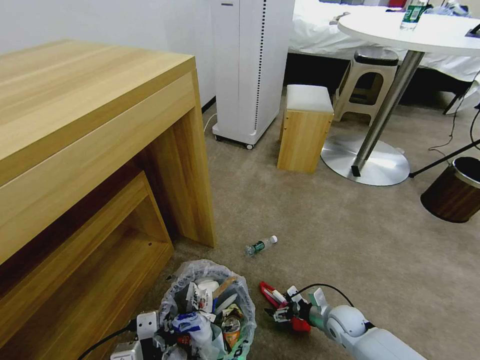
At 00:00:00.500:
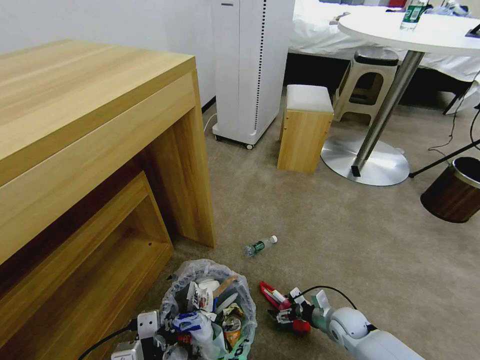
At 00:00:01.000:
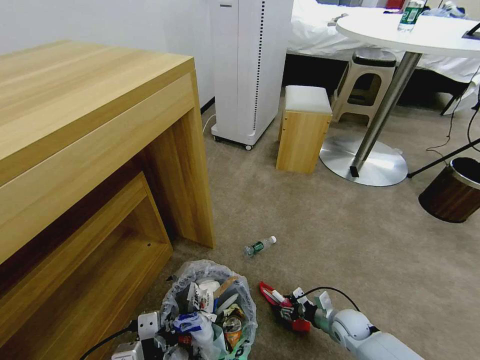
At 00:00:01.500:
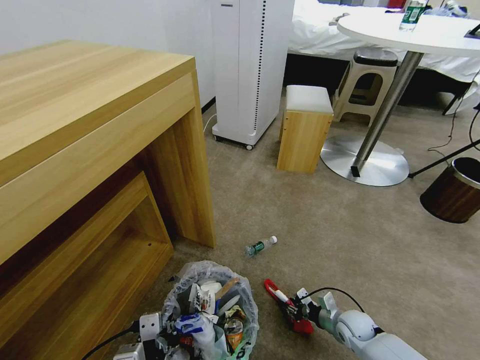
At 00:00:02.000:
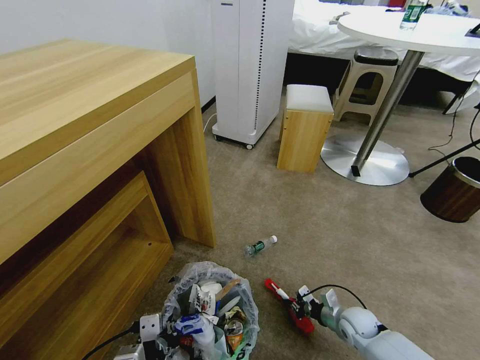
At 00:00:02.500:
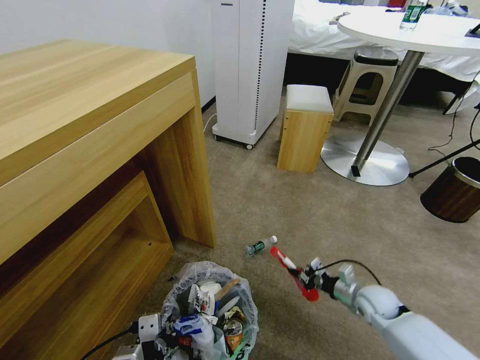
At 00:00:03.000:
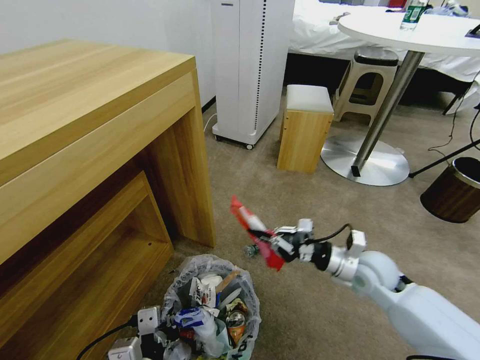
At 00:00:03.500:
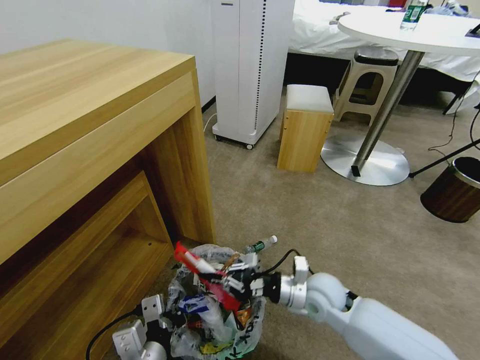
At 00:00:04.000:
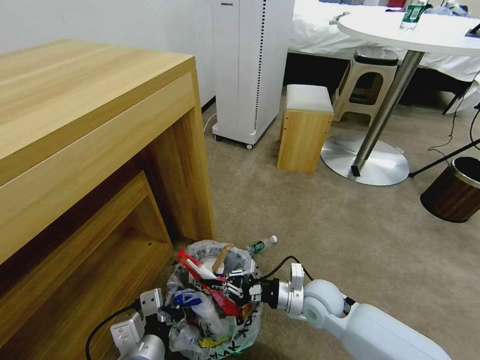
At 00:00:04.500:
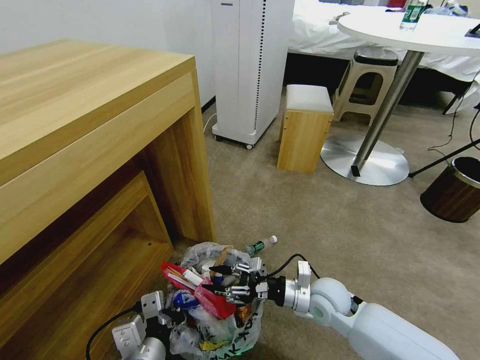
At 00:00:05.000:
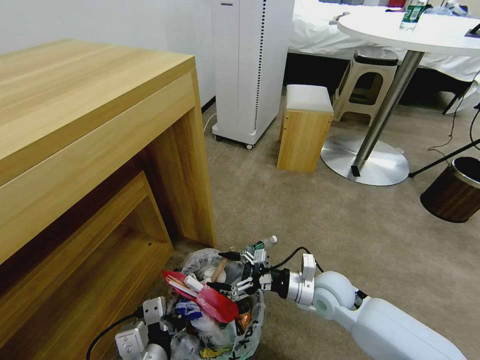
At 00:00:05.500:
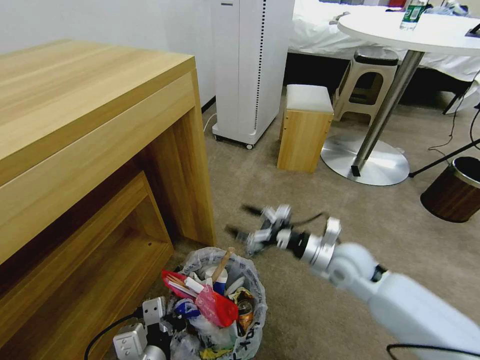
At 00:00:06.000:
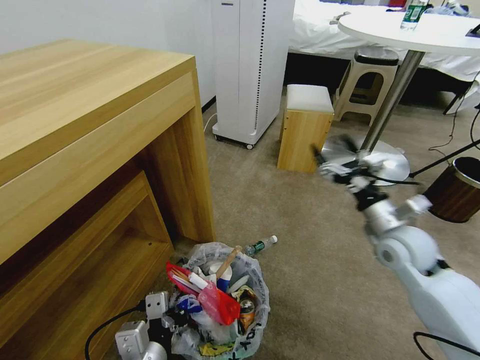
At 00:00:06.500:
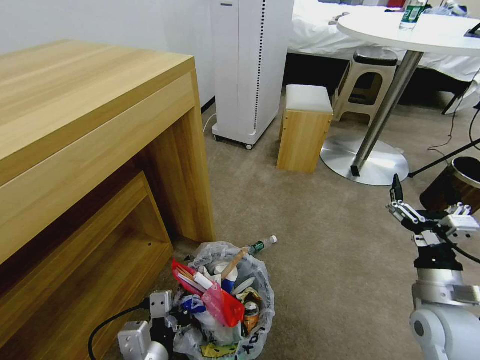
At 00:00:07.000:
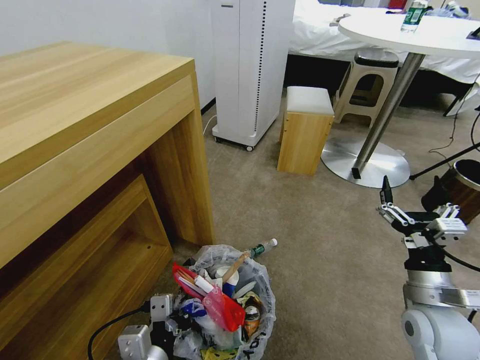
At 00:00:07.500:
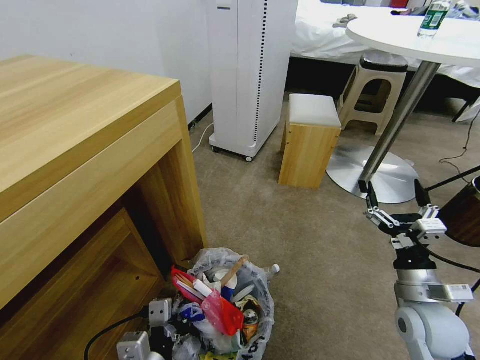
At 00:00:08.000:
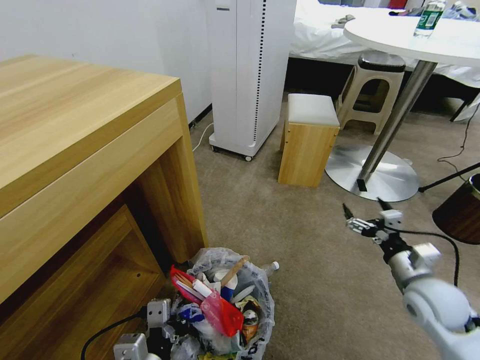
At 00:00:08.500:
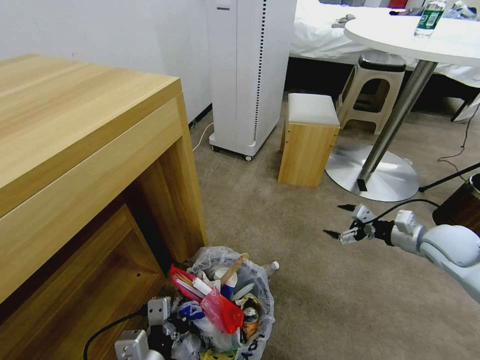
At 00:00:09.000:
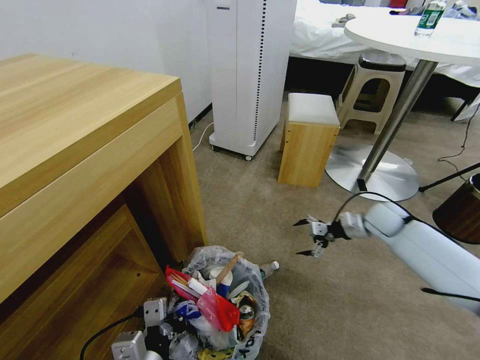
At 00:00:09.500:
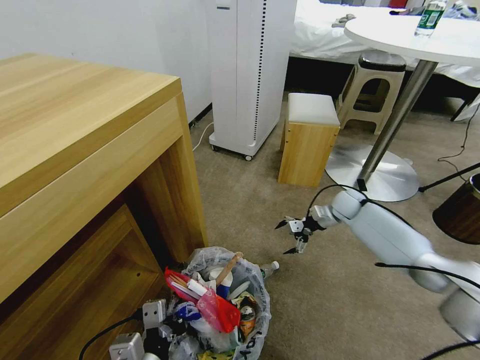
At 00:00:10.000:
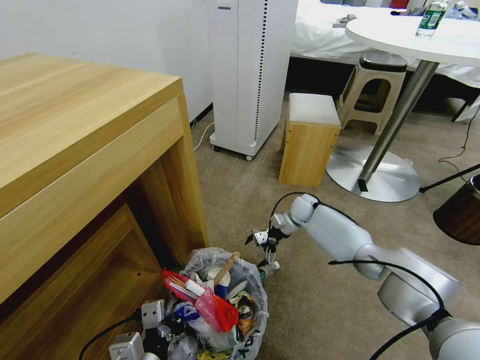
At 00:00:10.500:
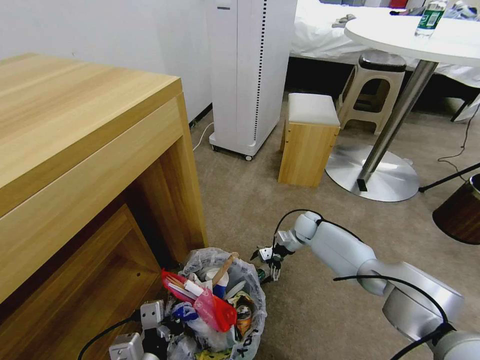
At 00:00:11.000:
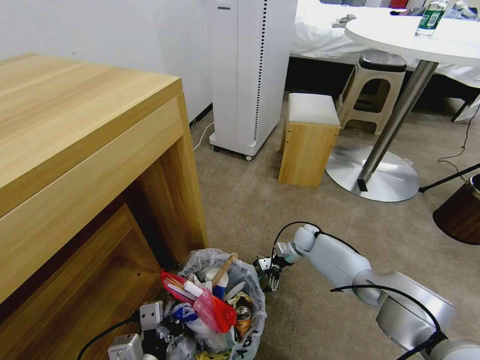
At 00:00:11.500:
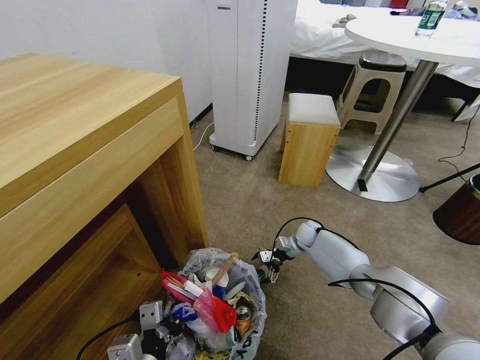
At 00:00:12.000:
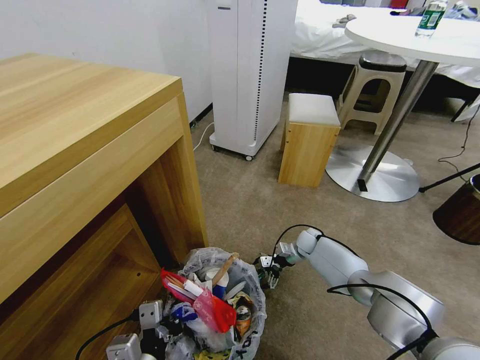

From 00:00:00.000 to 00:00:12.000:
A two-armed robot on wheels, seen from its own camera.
Task of the whole recording: Pick up the trash bin and place the garbage on the floor into it.
From 00:00:00.000 to 00:00:02.000: The right gripper closes its fingers.
From 00:00:02.000 to 00:00:04.000: The right gripper travels upward and to the left by approximately 20 cm. Meanwhile the left gripper ends up some 5 cm from where it was.
From 00:00:04.000 to 00:00:06.000: The right gripper is displaced upward and to the right by about 20 cm, and opens.
From 00:00:06.000 to 00:00:08.000: The right gripper goes approximately 15 cm backward, downward and to the right.
From 00:00:08.000 to 00:00:10.000: The right gripper is displaced forward and to the left by approximately 35 cm.
From 00:00:10.000 to 00:00:12.000: The right gripper goes about 10 cm downward and backward.

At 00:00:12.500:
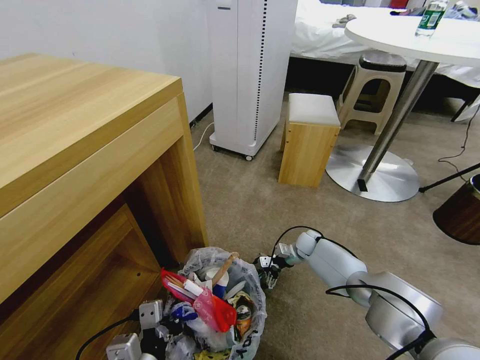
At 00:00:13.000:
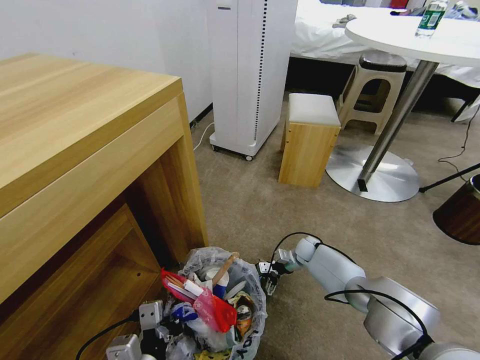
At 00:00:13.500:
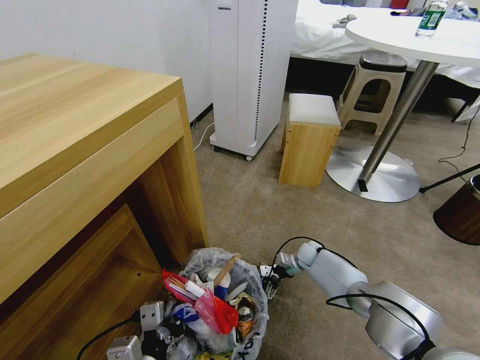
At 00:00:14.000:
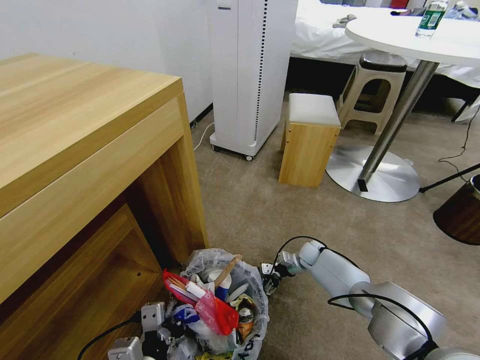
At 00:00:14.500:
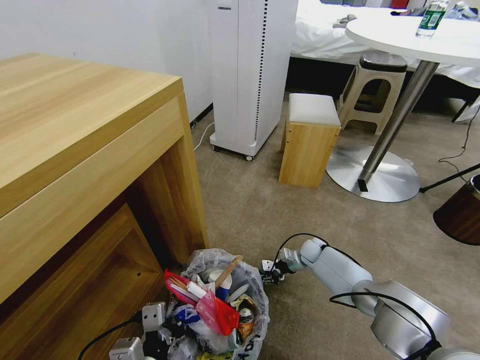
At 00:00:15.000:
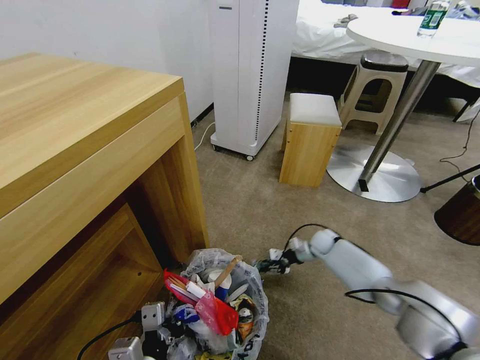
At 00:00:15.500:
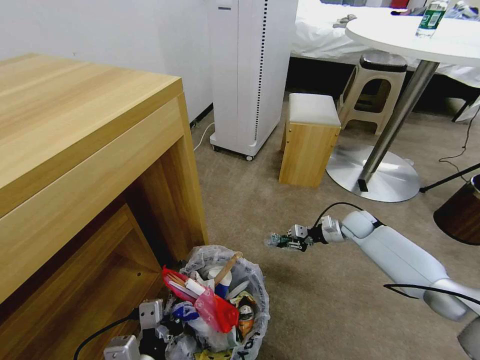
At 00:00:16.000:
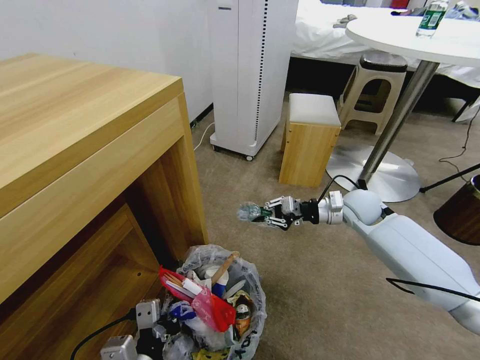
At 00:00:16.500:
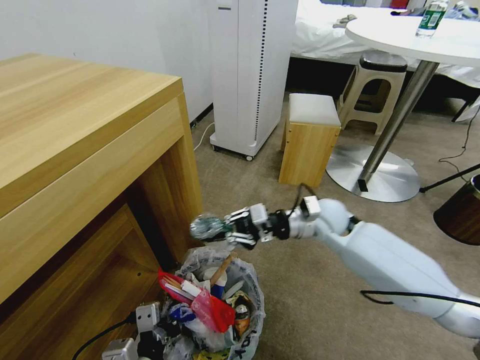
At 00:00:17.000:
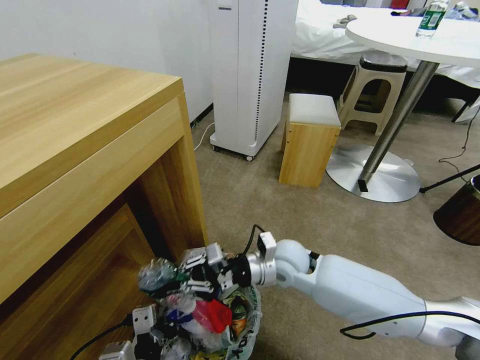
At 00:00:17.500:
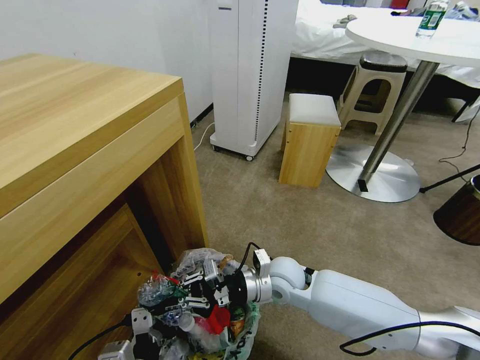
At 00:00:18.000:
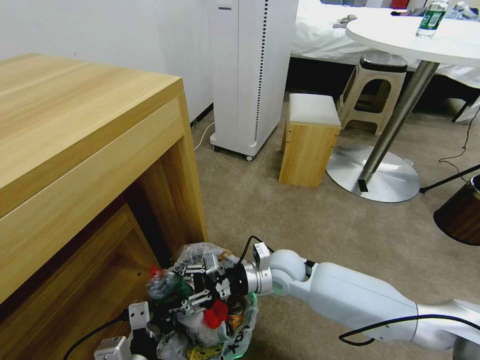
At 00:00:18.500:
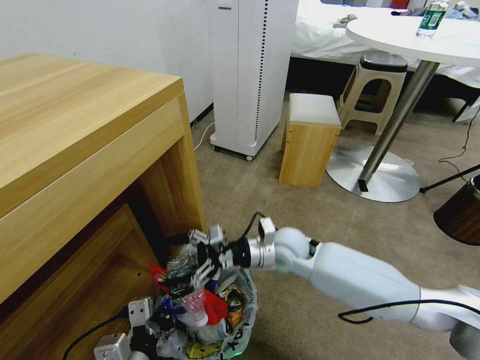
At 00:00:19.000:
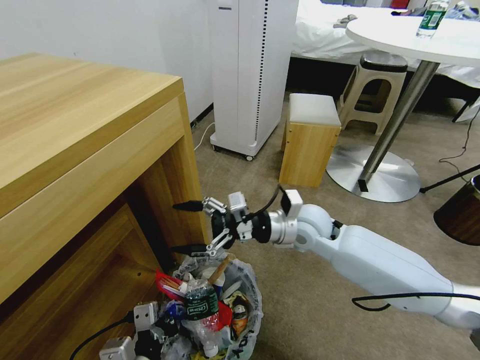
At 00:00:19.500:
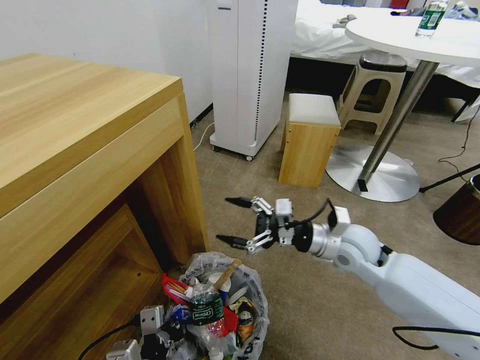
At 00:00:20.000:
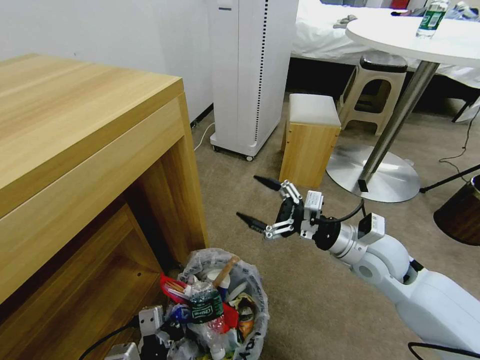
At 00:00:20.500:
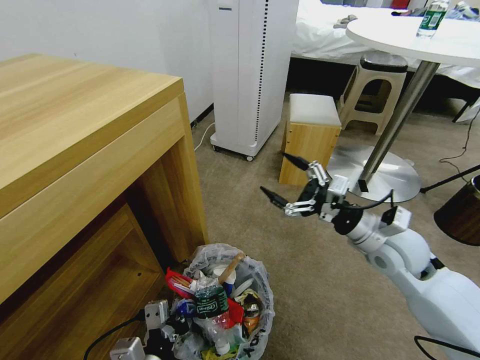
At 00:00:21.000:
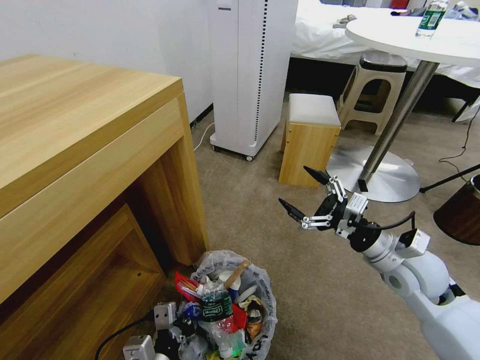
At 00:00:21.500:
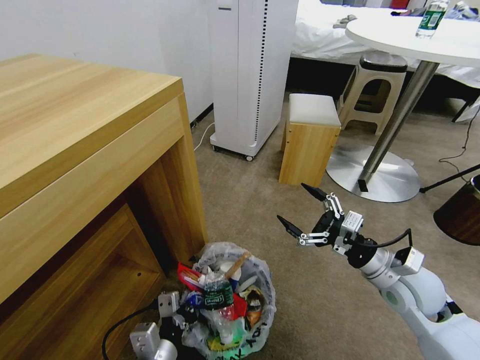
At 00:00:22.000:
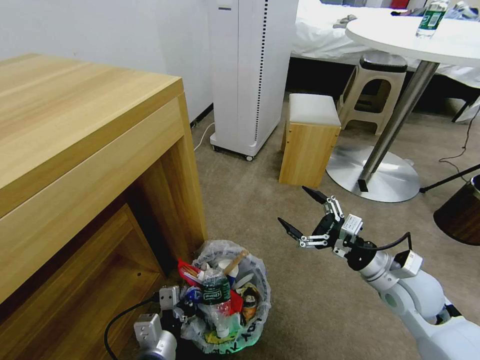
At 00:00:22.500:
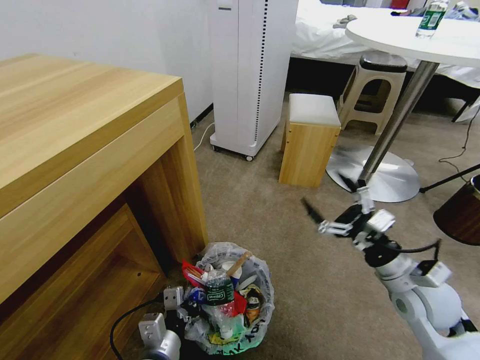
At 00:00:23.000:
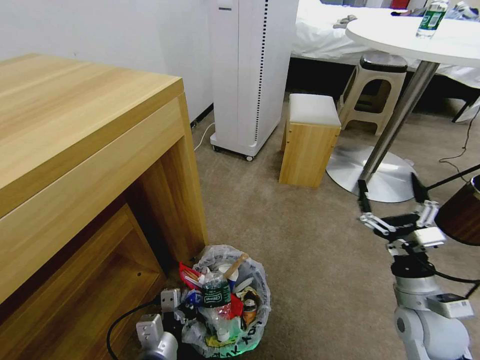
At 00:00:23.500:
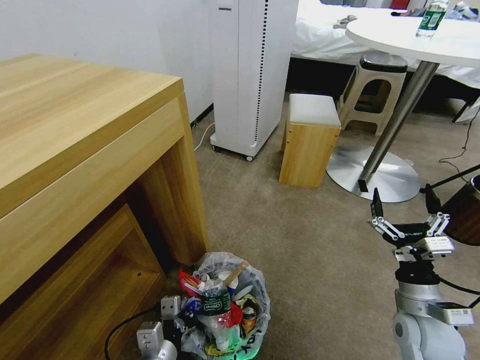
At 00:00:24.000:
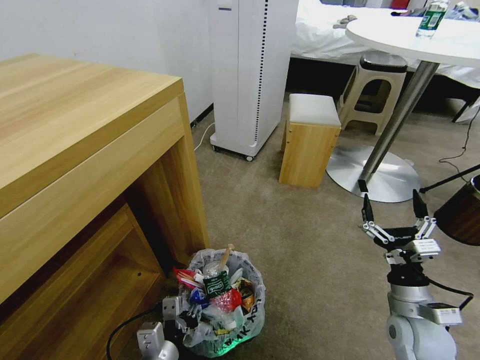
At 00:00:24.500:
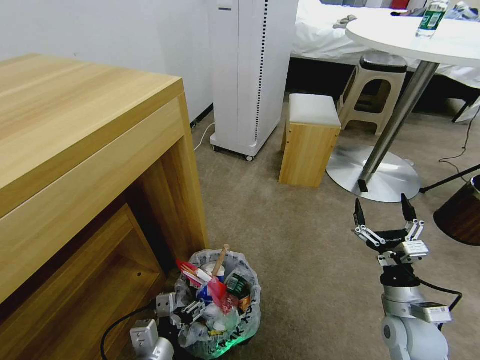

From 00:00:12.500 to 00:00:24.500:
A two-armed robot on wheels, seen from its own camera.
Task of the whole recording: Pick up the trash bin and place the garbage on the floor into it.
From 00:00:12.500 to 00:00:14.500: The right gripper closes its fingers.
From 00:00:14.500 to 00:00:16.500: The right gripper heads upward, covering about 30 cm.
From 00:00:16.500 to 00:00:18.500: The right gripper heads to the left and downward, covering roughly 10 cm, and opens its fingers.
From 00:00:18.500 to 00:00:20.500: The right gripper moves to the right and upward, about 20 cm.
From 00:00:20.500 to 00:00:22.500: The right gripper is displaced backward and downward by approximately 10 cm; the left gripper moves downward and forward, some 10 cm.
From 00:00:22.500 to 00:00:24.500: The left gripper opens; the right gripper travels downward by some 10 cm.

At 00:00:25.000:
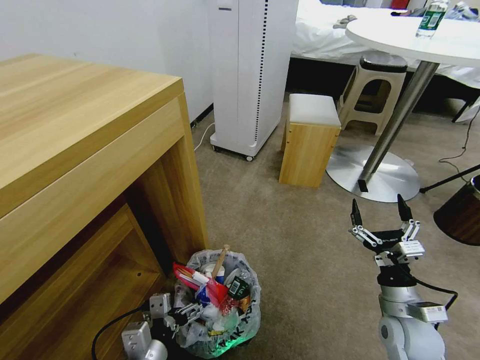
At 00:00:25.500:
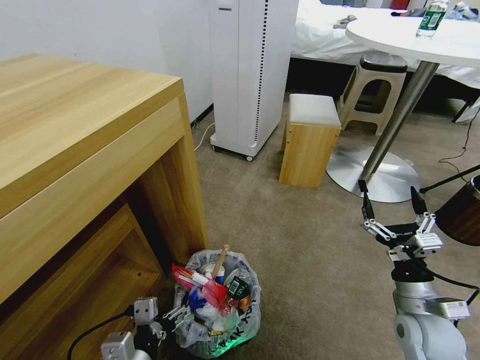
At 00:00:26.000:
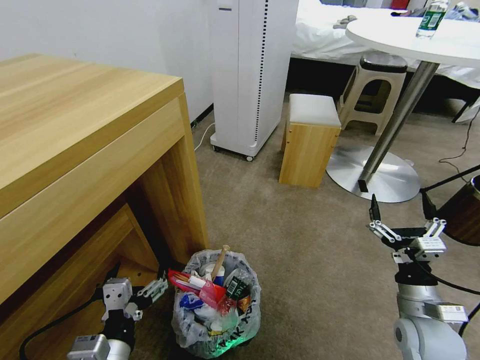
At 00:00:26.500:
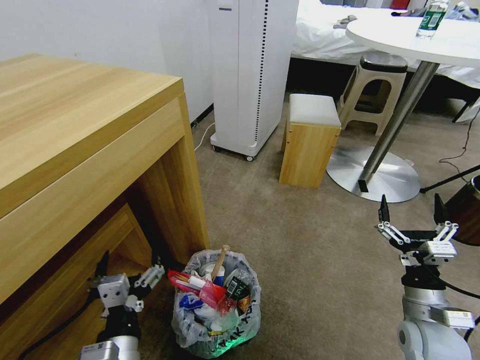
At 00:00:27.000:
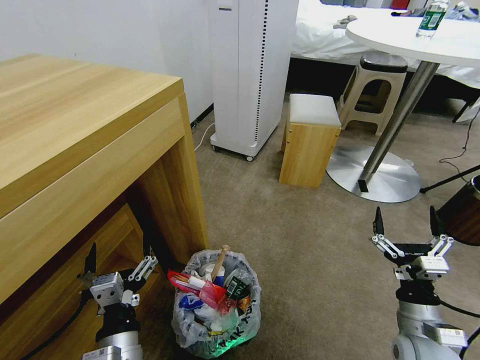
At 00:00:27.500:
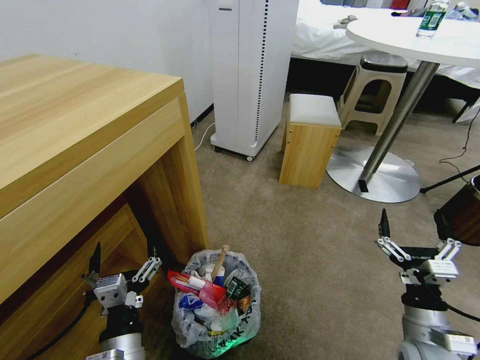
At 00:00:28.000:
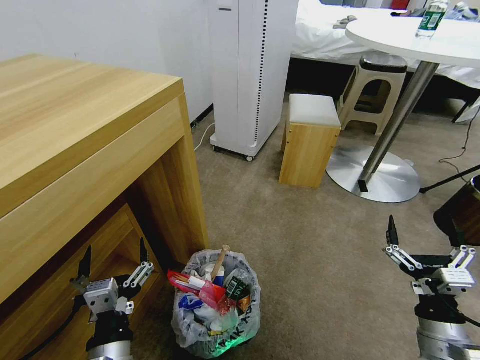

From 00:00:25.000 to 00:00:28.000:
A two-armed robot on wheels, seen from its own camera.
Task of the whole recording: Pick up the trash bin and place the garbage on the floor into it.
From 00:00:26.500 to 00:00:28.000: The right gripper shifts roughly 5 cm backward.
